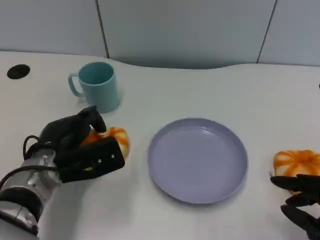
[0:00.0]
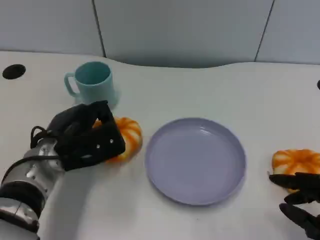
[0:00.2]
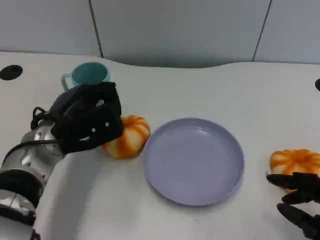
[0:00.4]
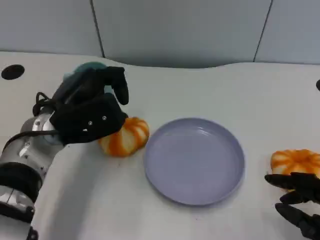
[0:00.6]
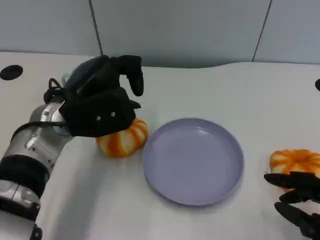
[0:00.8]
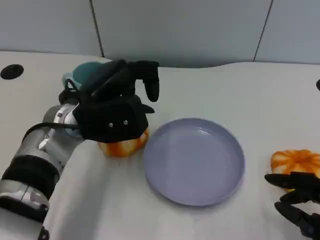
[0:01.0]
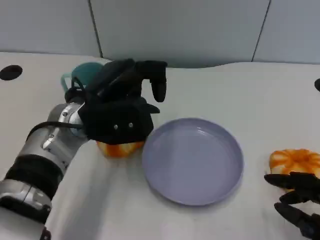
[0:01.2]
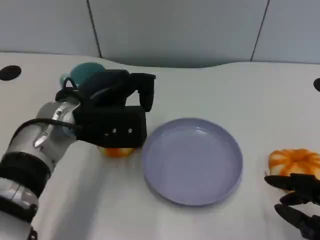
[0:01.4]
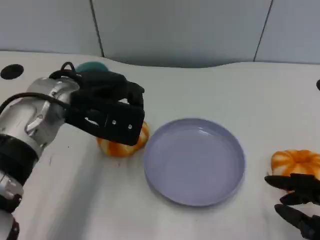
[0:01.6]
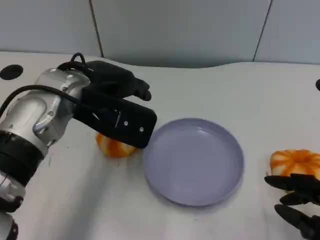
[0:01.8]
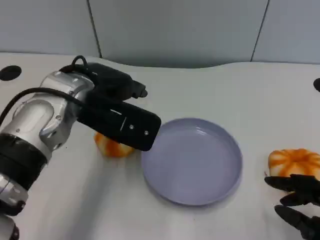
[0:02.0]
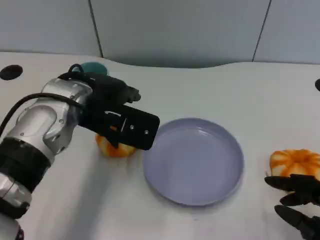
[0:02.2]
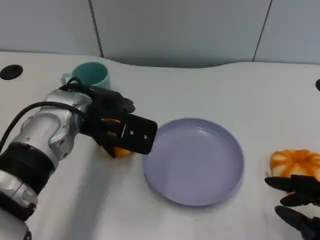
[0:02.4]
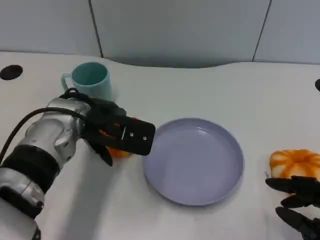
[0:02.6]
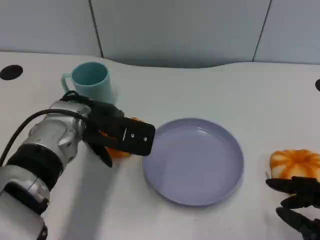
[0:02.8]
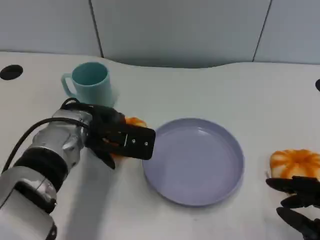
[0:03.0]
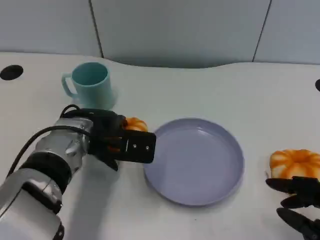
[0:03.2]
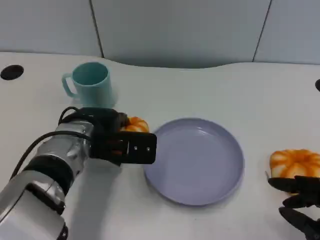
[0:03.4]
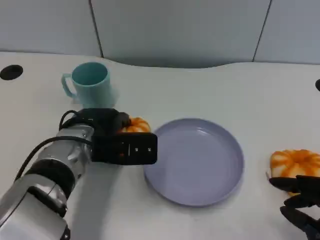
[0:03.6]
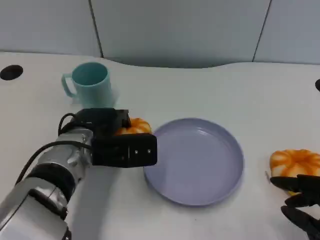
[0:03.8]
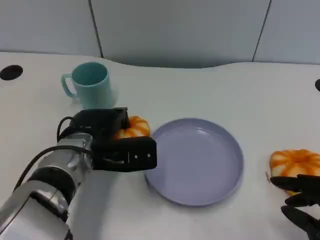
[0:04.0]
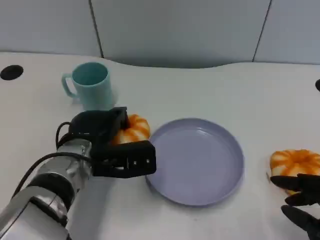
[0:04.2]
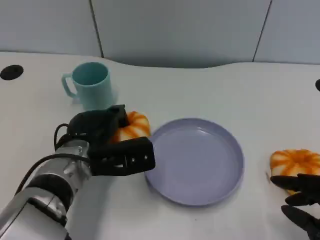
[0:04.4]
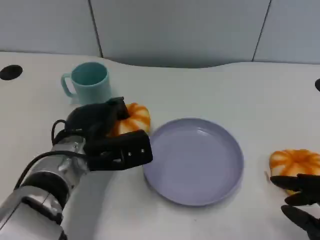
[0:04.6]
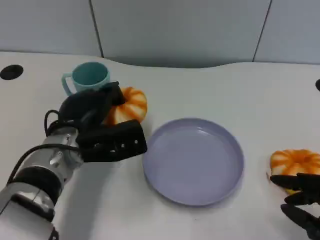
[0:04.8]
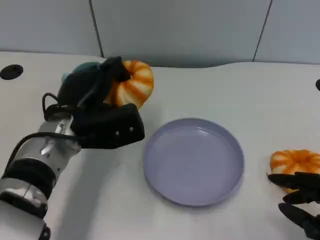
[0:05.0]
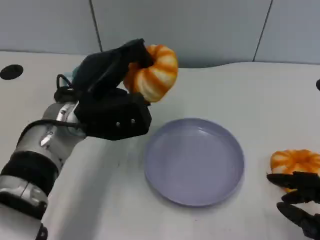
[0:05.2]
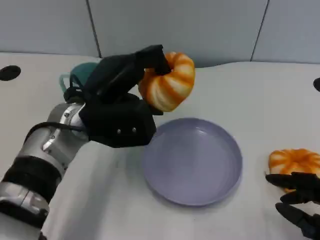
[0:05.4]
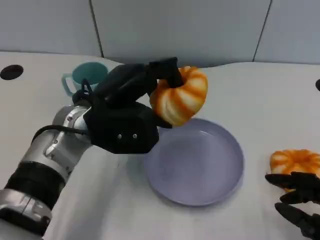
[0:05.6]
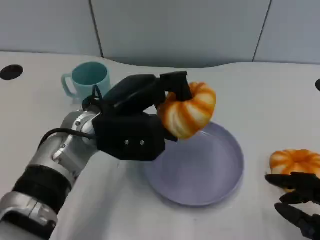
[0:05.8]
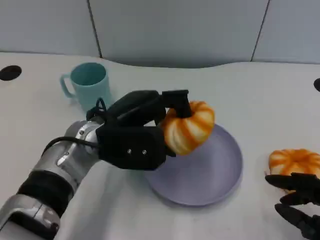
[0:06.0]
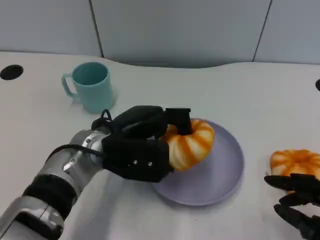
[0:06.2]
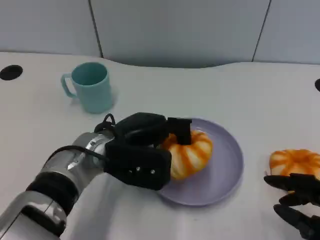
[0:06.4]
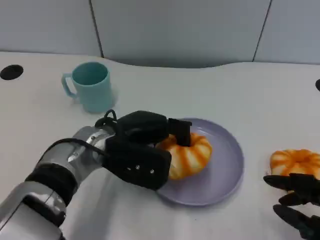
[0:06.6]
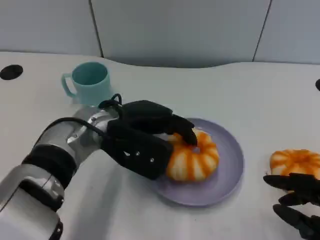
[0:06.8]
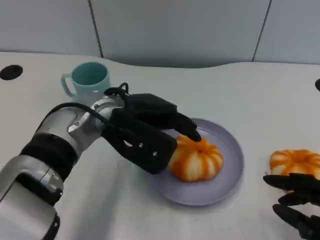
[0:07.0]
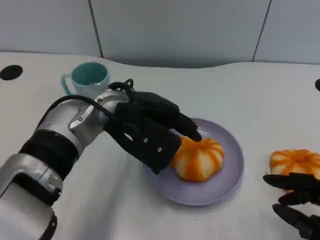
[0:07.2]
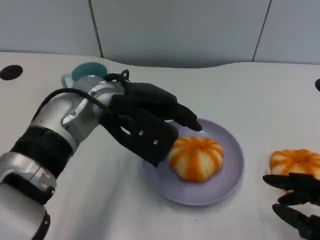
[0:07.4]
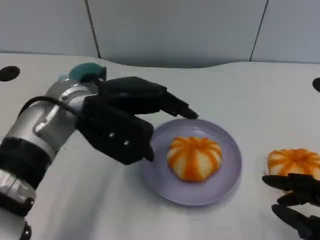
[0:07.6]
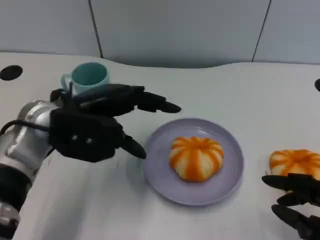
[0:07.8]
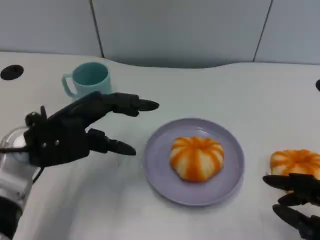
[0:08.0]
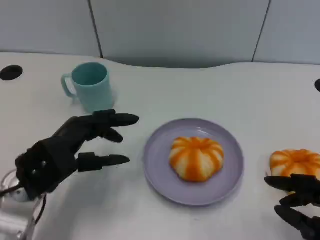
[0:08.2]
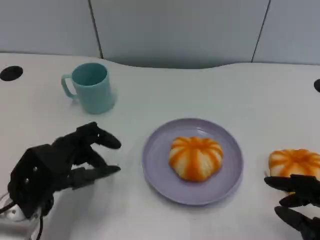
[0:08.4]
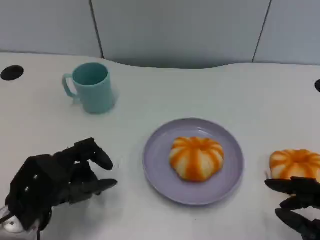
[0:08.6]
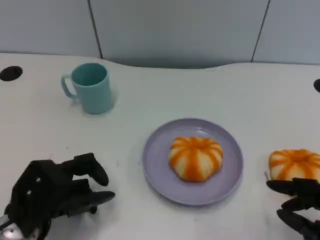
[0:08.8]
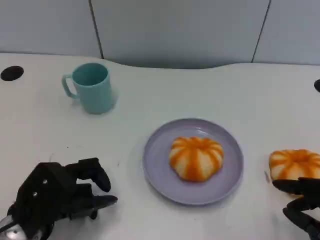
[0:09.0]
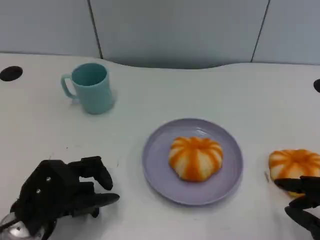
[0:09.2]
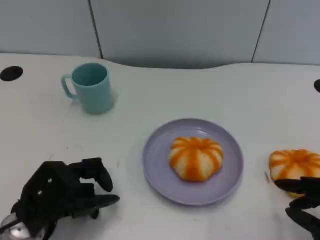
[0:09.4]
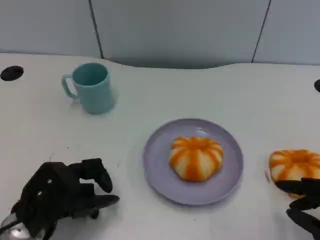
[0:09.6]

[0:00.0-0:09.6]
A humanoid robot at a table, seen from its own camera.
Task of the whole recording: Grasp the bread from the table and place it into the plate.
0:00.0 to 0:01.6: The left hand travels upward by approximately 15 cm.
0:01.6 to 0:03.2: The left hand heads downward, covering some 10 cm.
0:04.8 to 0:06.4: The left hand shifts by roughly 5 cm.
0:06.4 to 0:08.0: The left hand goes roughly 10 cm to the left.
0:08.0 to 0:09.6: The left hand goes some 10 cm downward and backward.

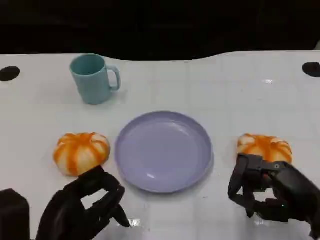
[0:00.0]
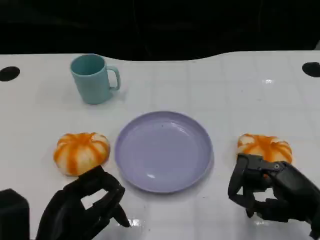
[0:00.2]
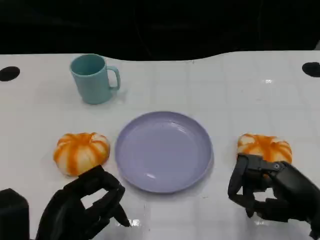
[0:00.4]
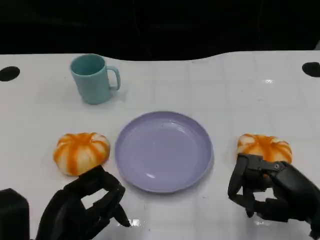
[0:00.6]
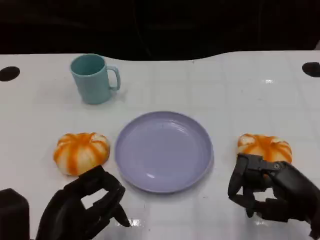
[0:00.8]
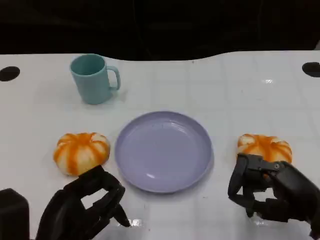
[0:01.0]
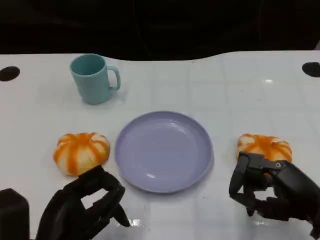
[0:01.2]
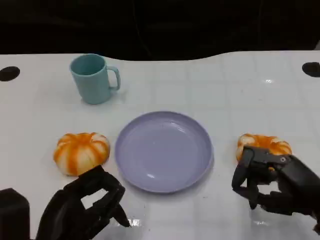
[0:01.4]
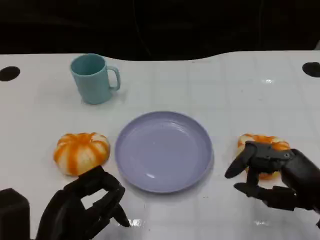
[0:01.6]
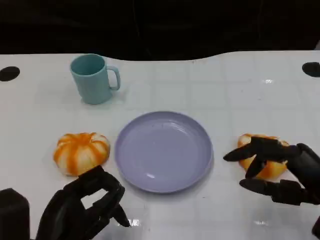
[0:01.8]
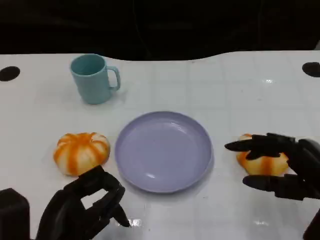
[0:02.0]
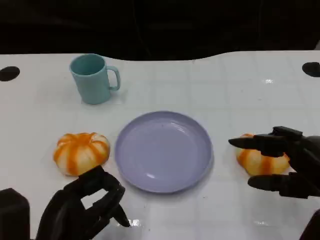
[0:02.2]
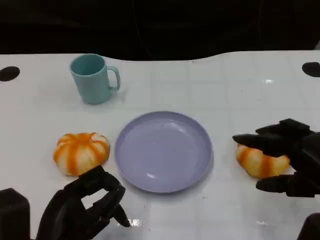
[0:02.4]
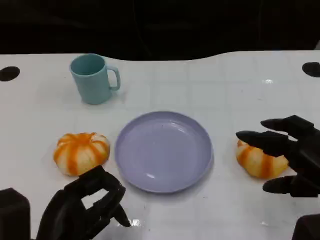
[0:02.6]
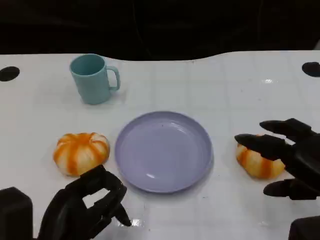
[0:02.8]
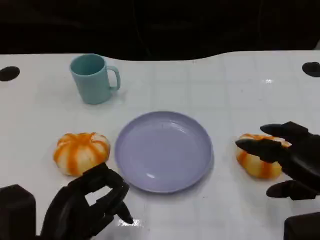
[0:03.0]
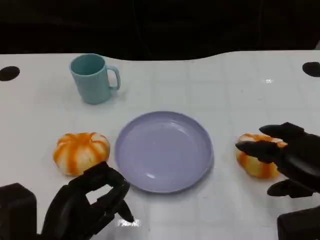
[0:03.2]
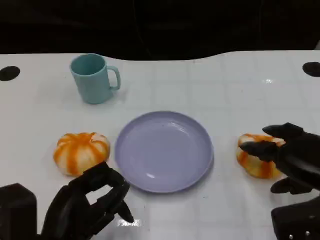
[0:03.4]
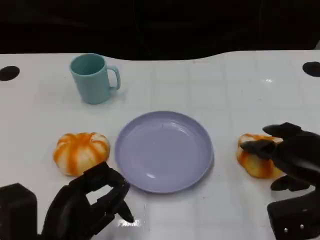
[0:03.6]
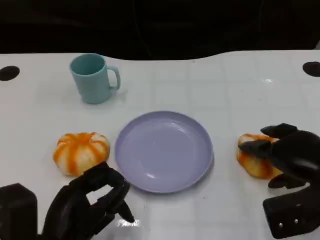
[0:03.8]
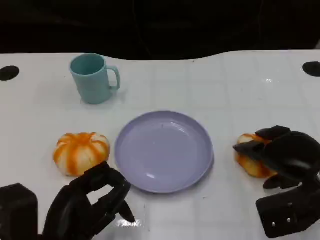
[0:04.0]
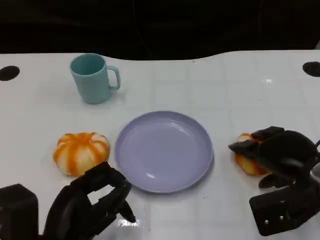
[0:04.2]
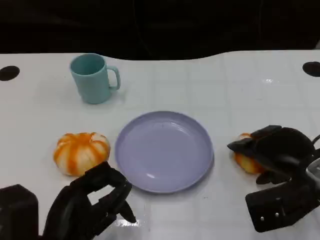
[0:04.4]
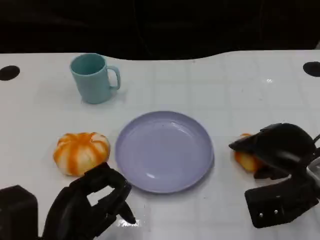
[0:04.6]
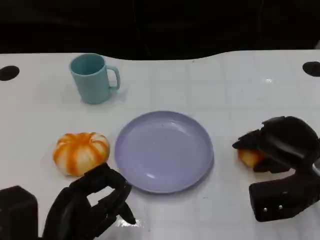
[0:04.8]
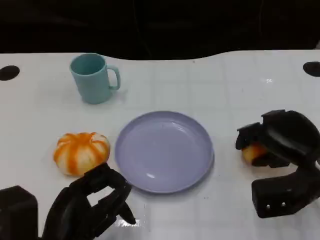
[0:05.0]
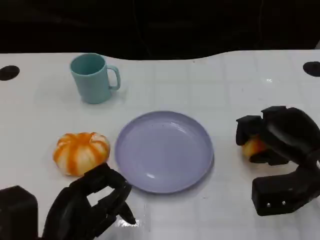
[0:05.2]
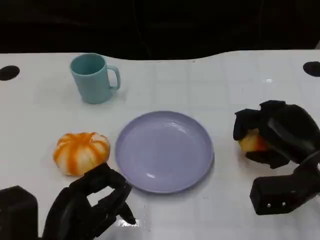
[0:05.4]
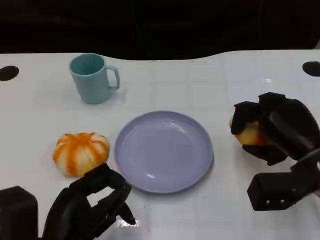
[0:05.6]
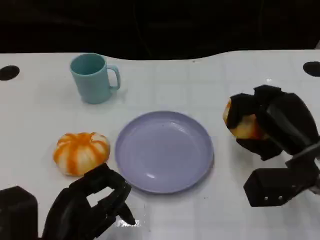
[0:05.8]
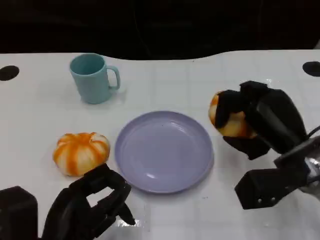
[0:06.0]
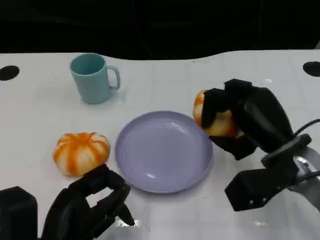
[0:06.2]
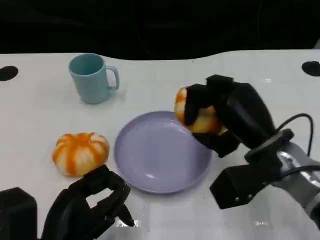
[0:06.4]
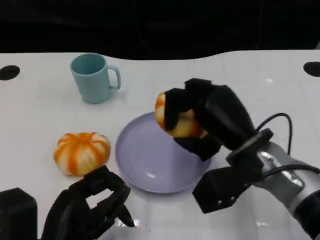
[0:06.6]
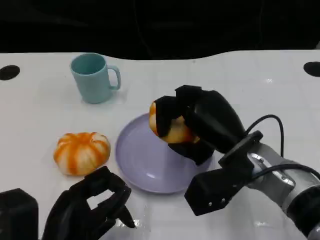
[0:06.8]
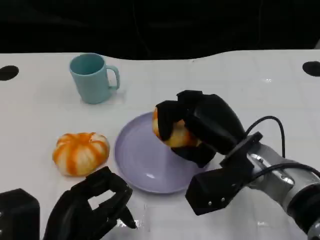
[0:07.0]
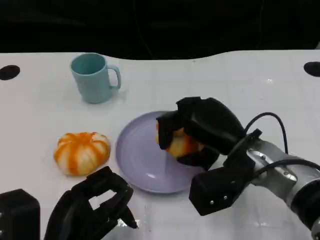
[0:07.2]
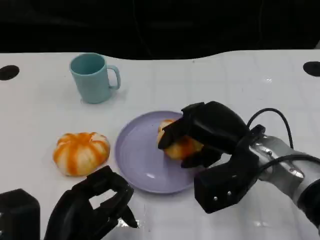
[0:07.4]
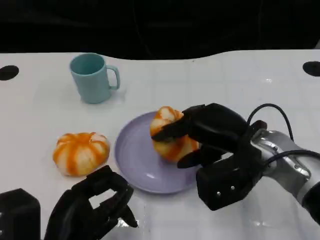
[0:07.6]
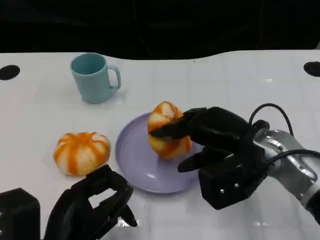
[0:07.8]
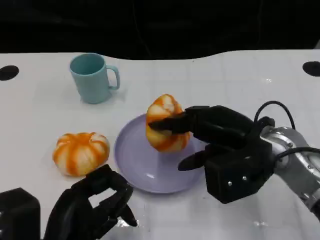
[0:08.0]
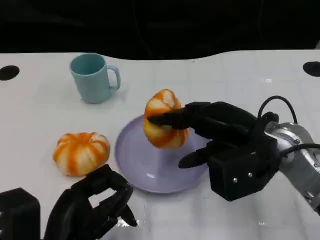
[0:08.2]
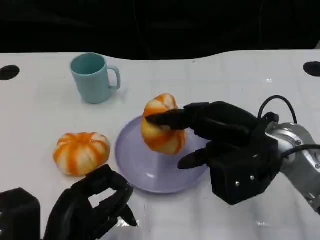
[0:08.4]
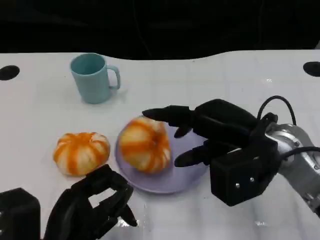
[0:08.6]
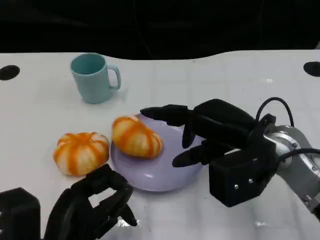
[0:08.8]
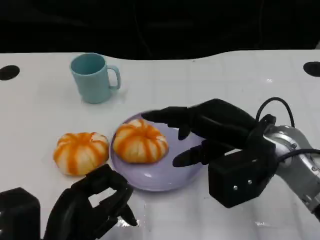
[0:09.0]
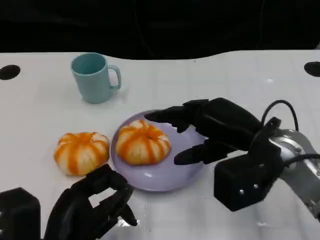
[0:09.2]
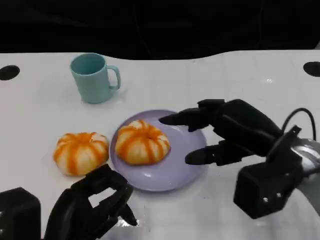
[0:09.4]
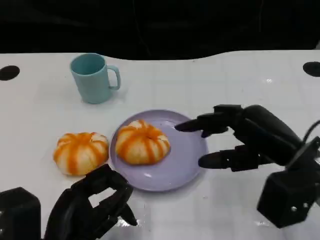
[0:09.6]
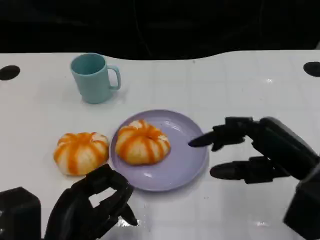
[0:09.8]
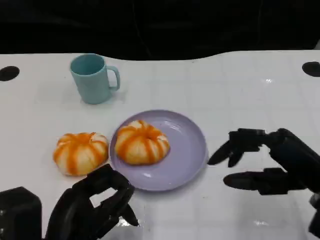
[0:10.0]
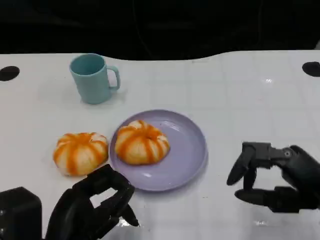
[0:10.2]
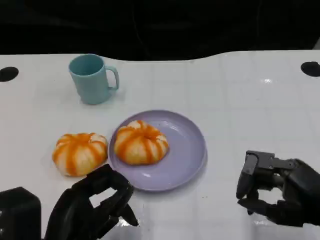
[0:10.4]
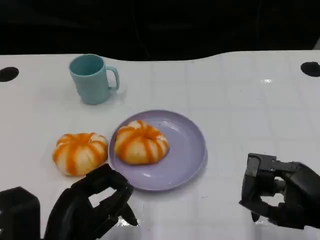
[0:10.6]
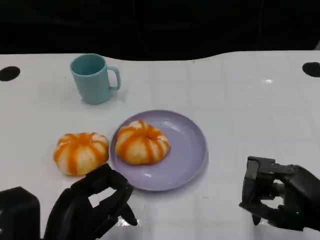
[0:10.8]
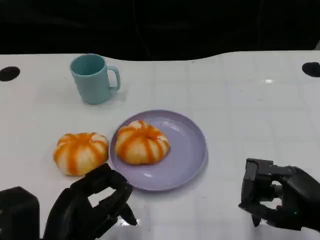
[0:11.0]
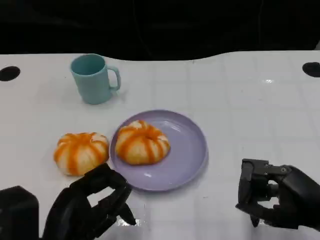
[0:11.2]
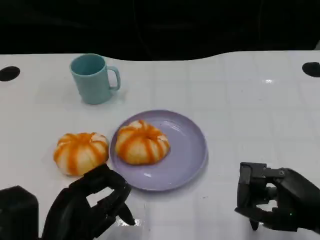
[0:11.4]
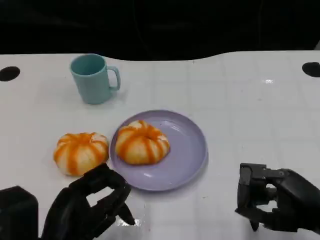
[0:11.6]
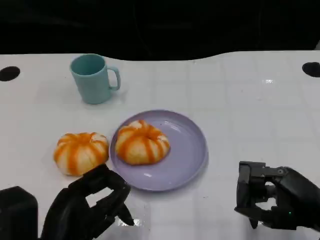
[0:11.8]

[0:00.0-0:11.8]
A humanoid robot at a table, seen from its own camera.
Task of the whole recording: Grasp the bread from the table and place it into the plate.
0:00.0 to 0:01.4: Both hands stay about where they are.
0:03.0 to 0:04.4: The right hand moves forward, some 5 cm.
0:06.0 to 0:07.4: The right hand goes approximately 5 cm to the left.
0:07.4 to 0:08.8: There are only small adjustments of the hands.
0:08.8 to 0:10.4: The right hand shifts about 15 cm backward and to the right.
0:10.4 to 0:11.8: The hands stay close to where they were, moving slightly.

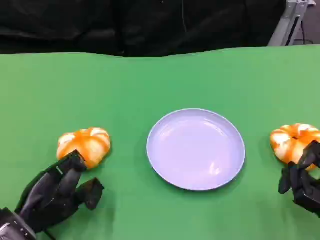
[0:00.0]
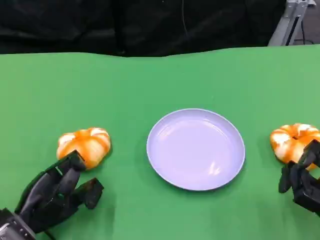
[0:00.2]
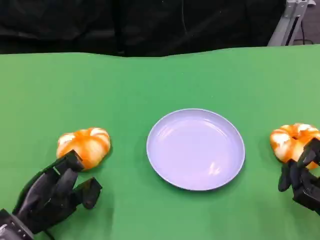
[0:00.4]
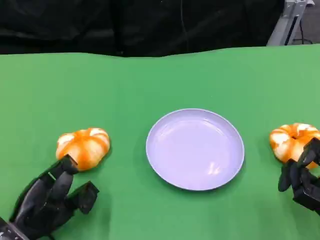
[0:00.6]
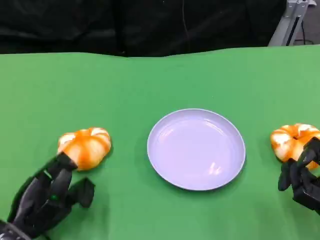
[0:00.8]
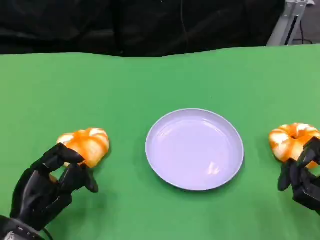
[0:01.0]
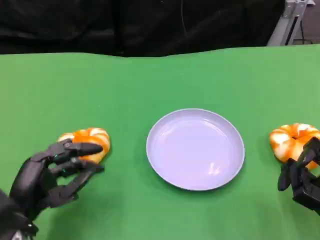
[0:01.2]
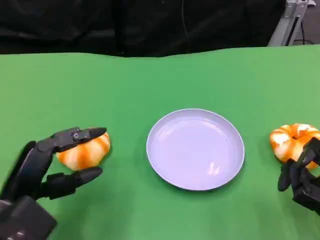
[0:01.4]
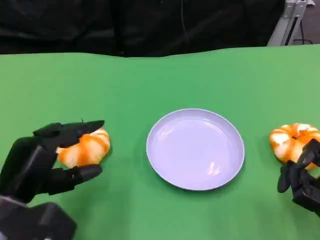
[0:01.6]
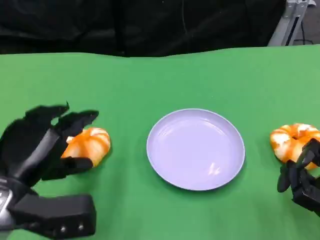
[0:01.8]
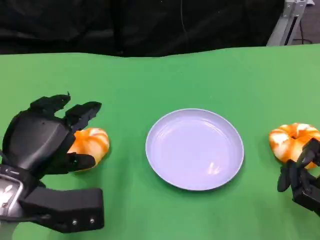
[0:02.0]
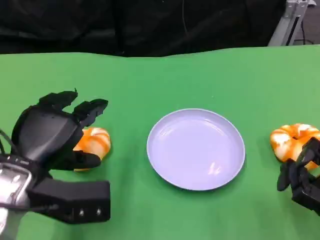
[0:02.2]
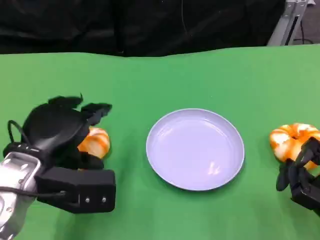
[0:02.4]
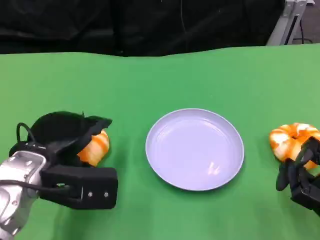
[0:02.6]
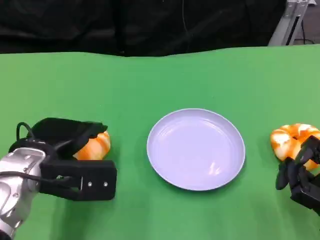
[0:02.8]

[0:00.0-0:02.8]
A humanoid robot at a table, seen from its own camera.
Task of the whole recording: Grasp the bread from the table and place it into the plate.
0:00.0 to 0:01.4: The left hand travels upward by roughly 10 cm.
0:01.4 to 0:02.8: The left hand goes roughly 5 cm forward.
